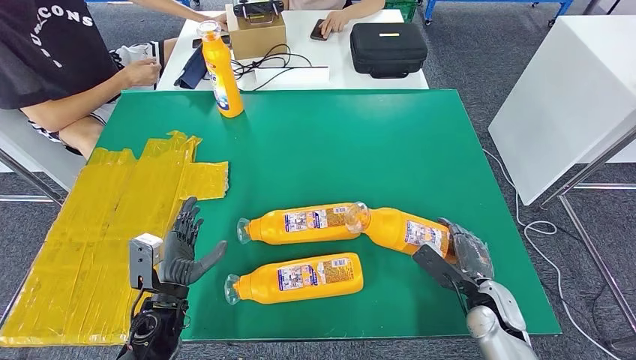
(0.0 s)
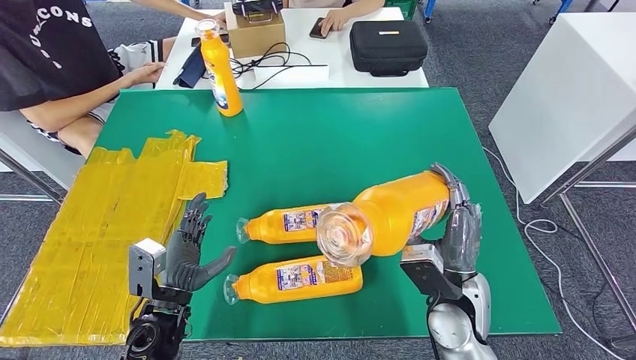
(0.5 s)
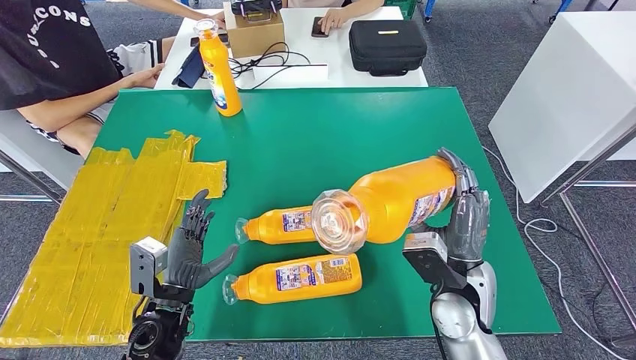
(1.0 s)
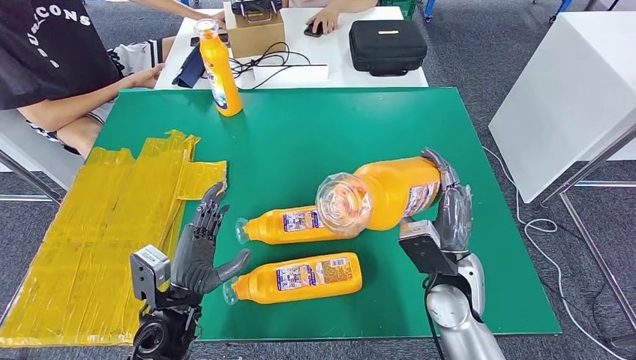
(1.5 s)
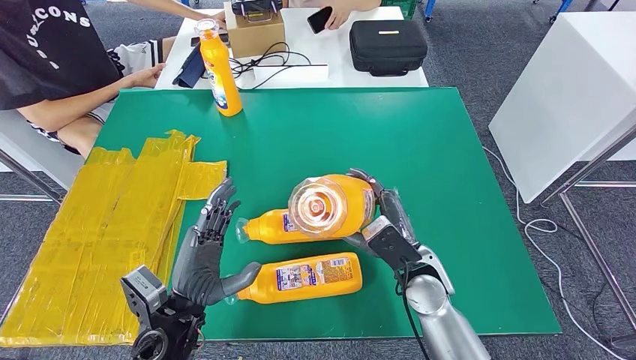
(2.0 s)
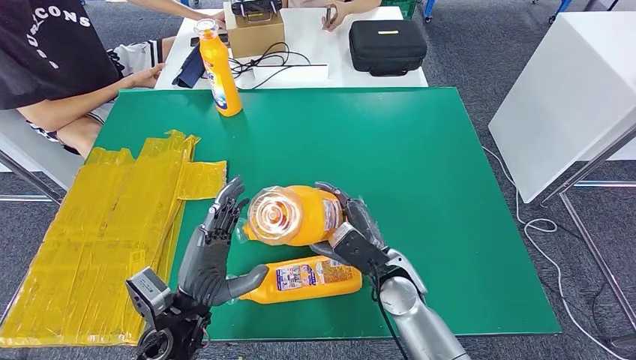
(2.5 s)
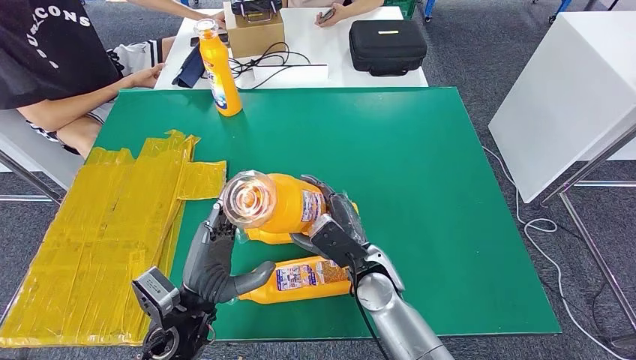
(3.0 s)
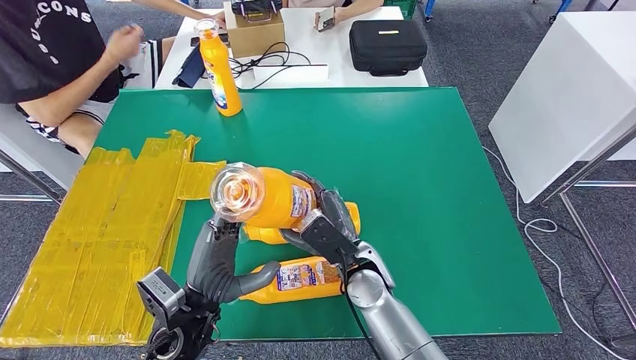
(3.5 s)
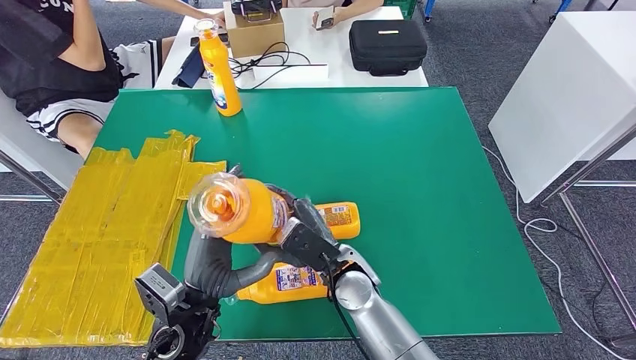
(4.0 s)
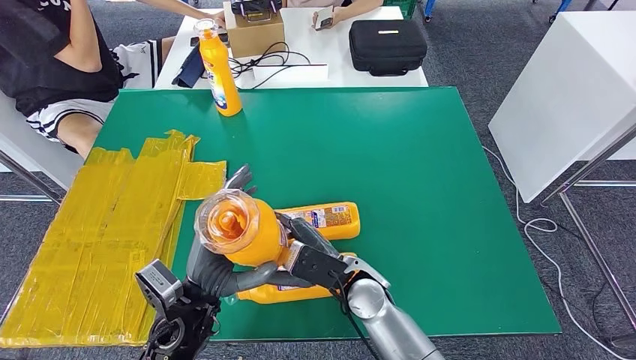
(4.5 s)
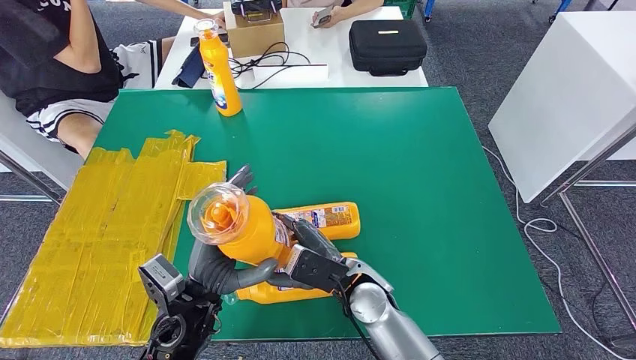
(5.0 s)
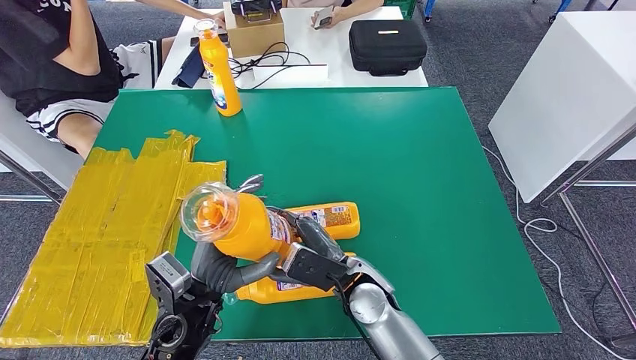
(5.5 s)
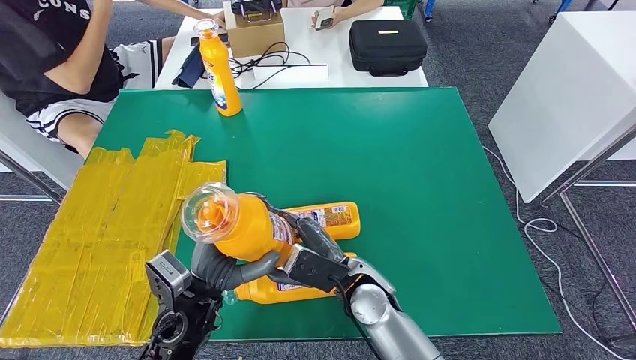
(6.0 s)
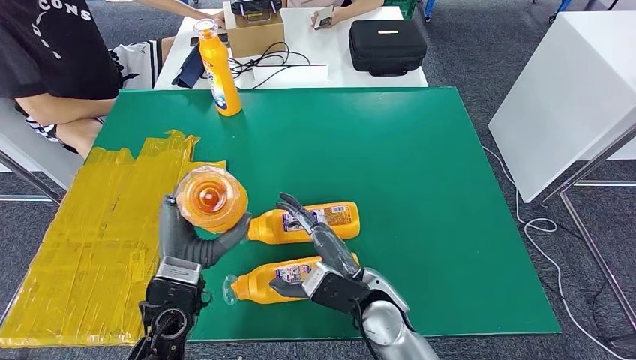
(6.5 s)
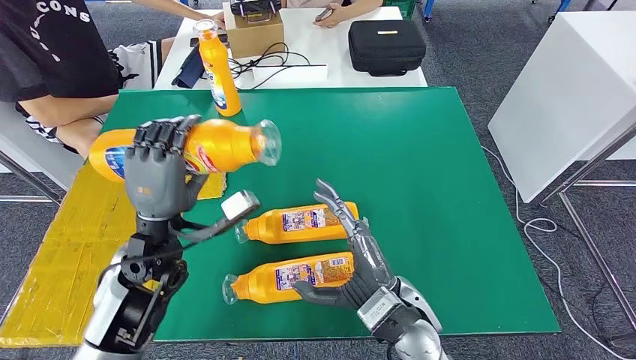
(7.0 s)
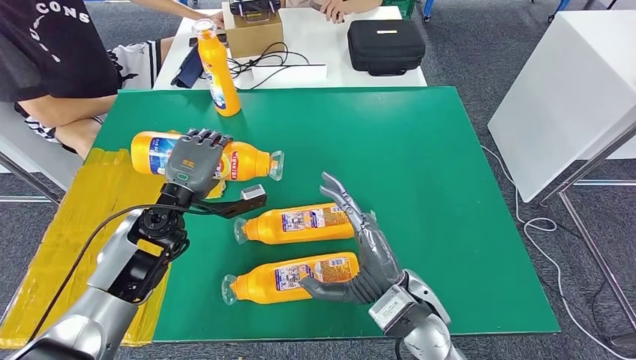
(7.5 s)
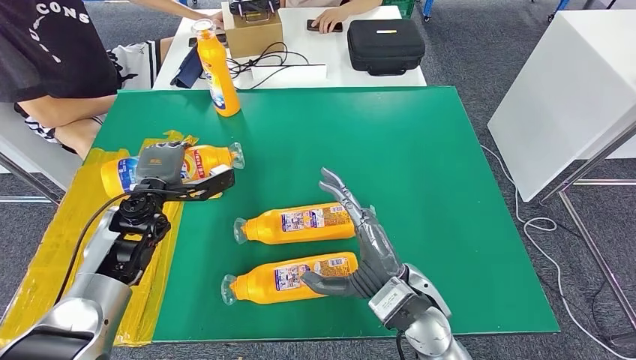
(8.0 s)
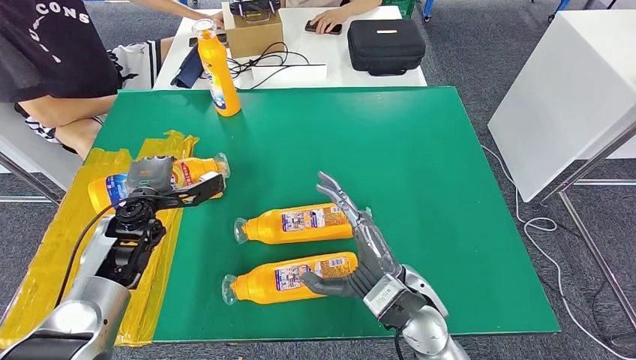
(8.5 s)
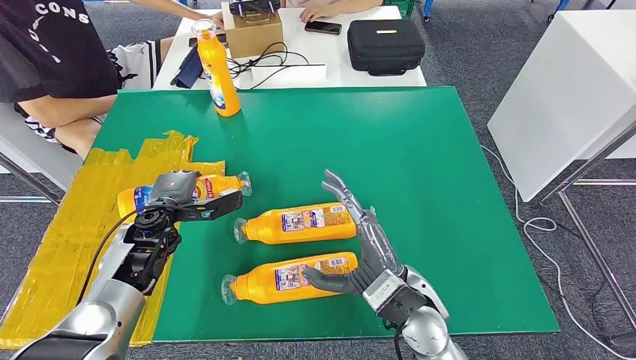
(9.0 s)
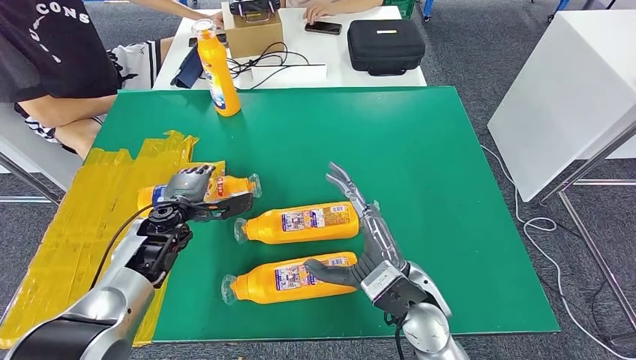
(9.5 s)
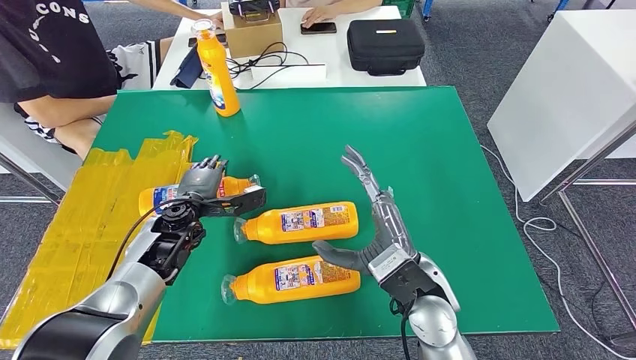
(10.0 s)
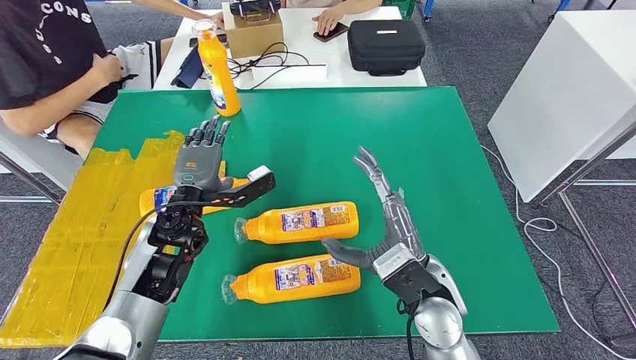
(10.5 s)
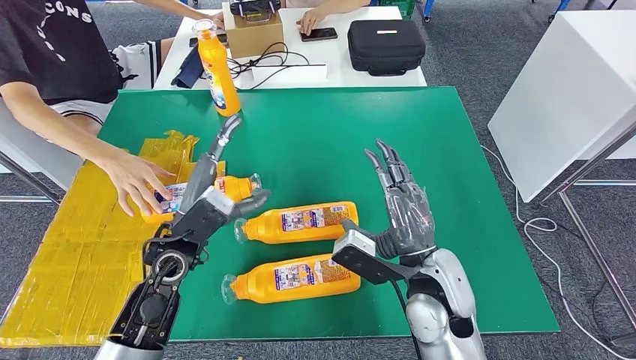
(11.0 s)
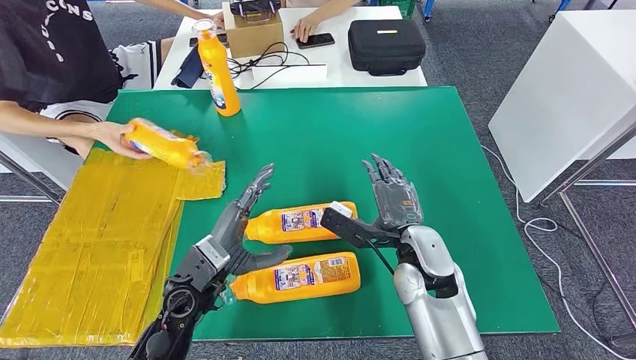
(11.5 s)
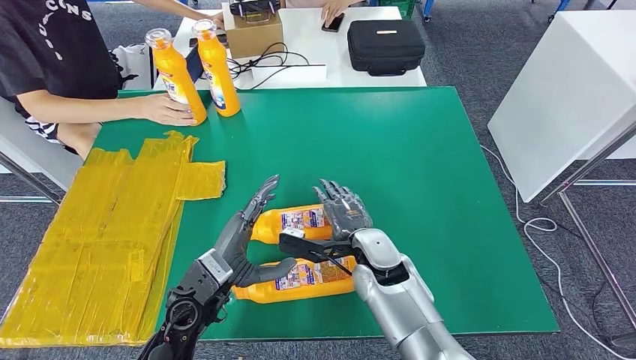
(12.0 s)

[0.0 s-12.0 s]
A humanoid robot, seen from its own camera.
Step, 0.0 to 9.5 s: Flip the bottle to face forward.
2.0 to 4.0 s: The right hand goes some 10 cm to the left.
4.0 to 6.0 s: The hands make only small movements.
8.0 to 10.0 s: The left hand is displaced to the right by roughly 5 cm.

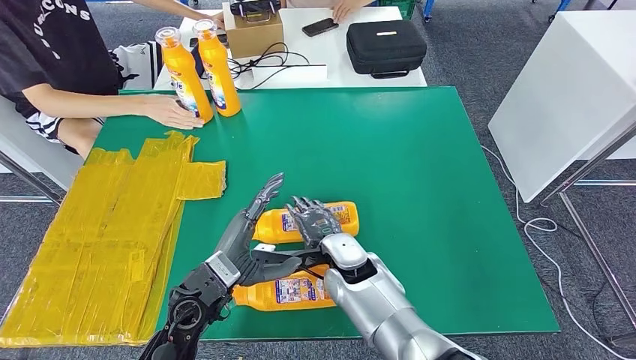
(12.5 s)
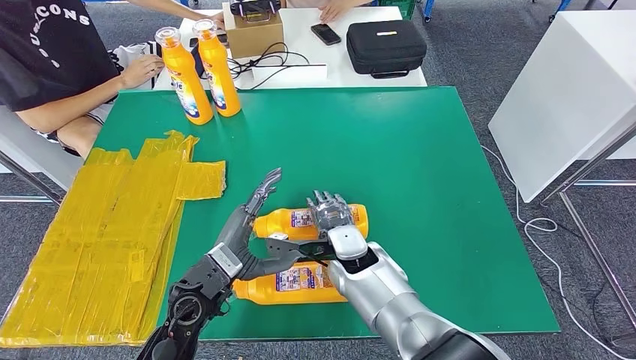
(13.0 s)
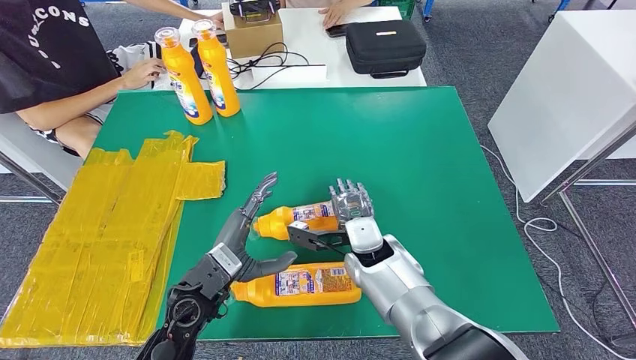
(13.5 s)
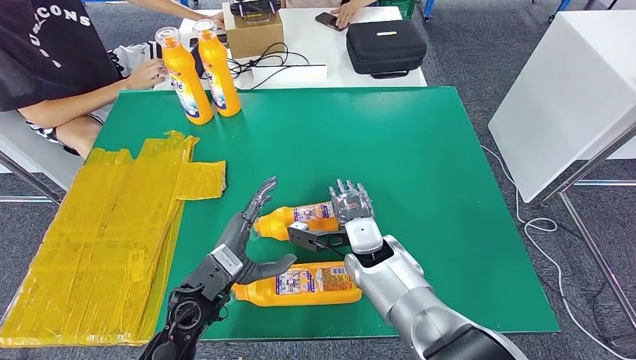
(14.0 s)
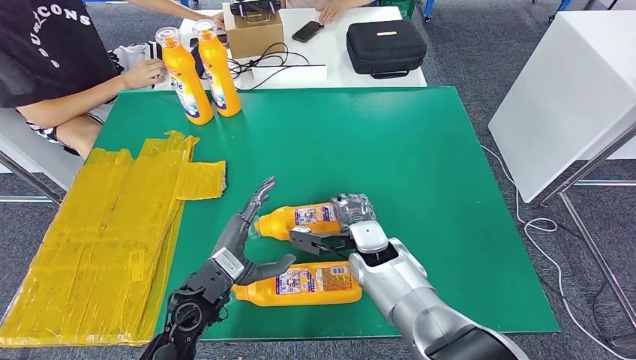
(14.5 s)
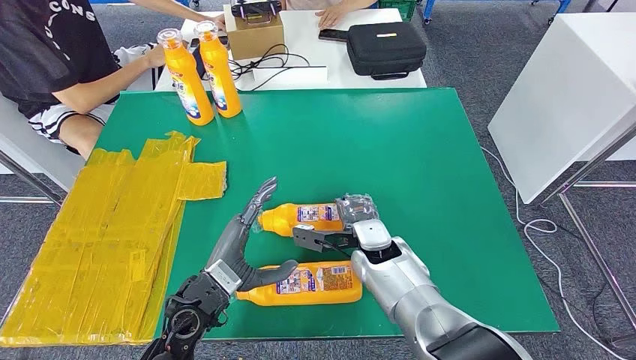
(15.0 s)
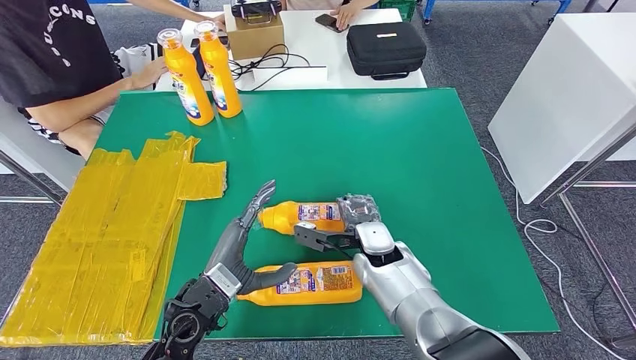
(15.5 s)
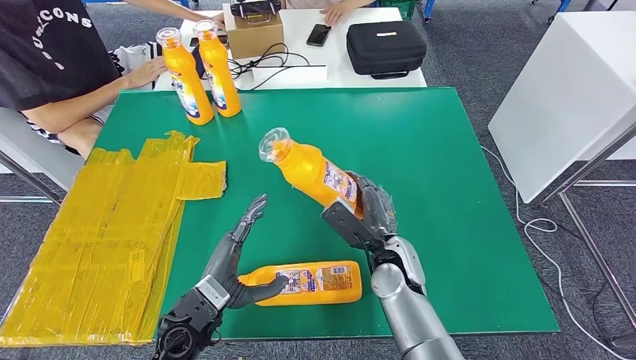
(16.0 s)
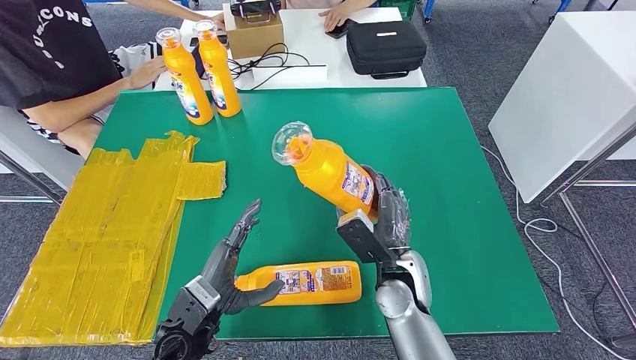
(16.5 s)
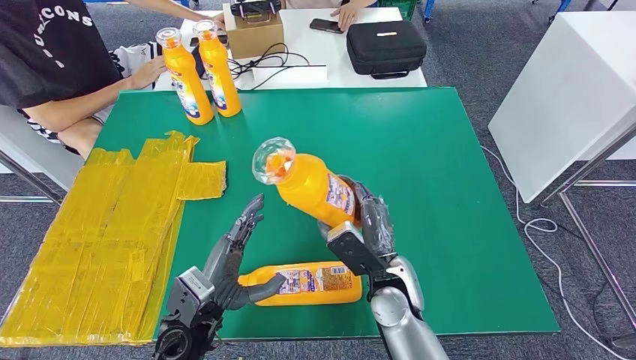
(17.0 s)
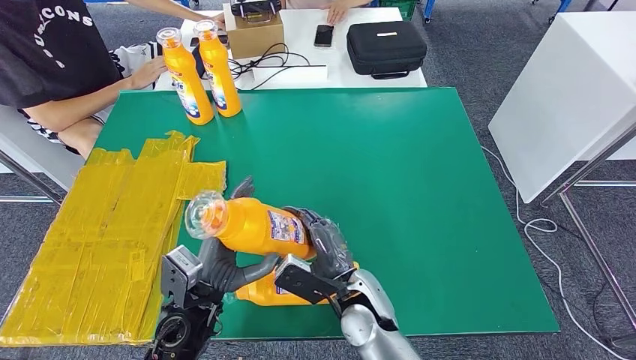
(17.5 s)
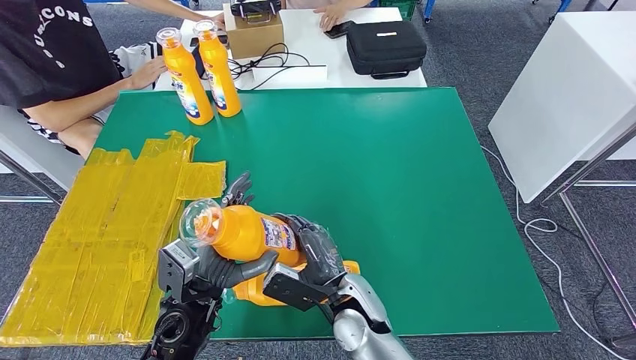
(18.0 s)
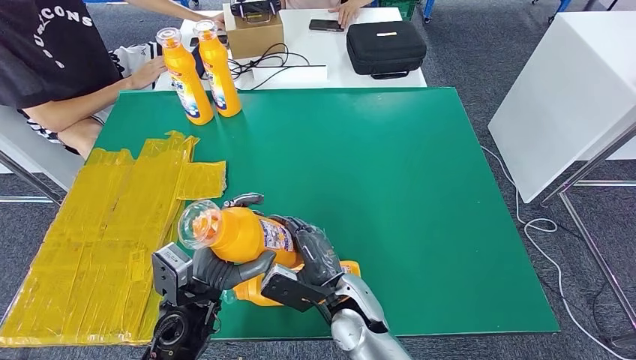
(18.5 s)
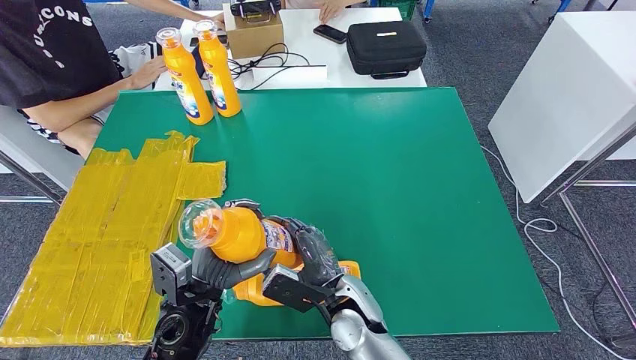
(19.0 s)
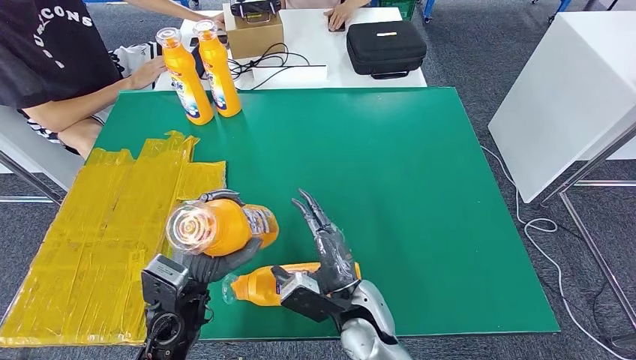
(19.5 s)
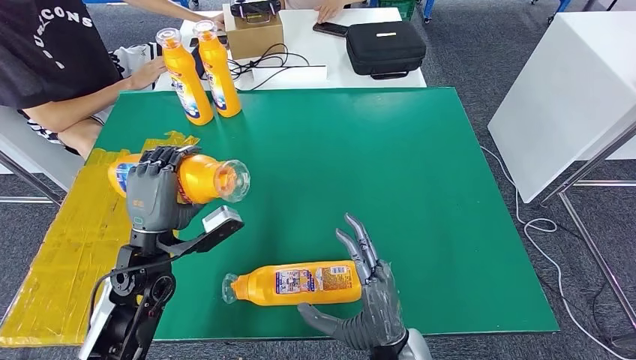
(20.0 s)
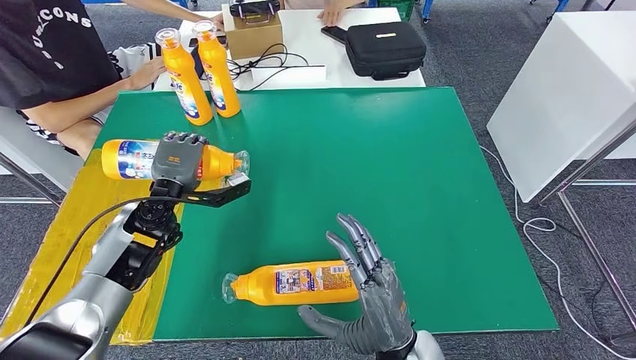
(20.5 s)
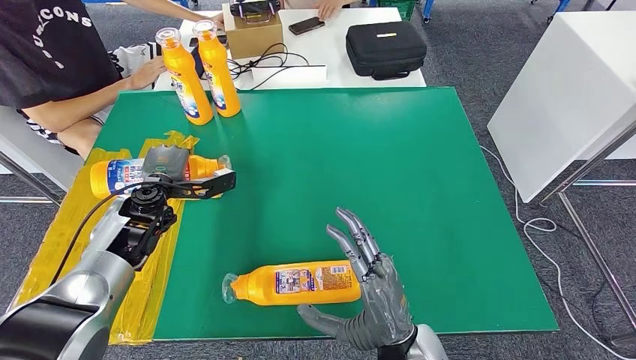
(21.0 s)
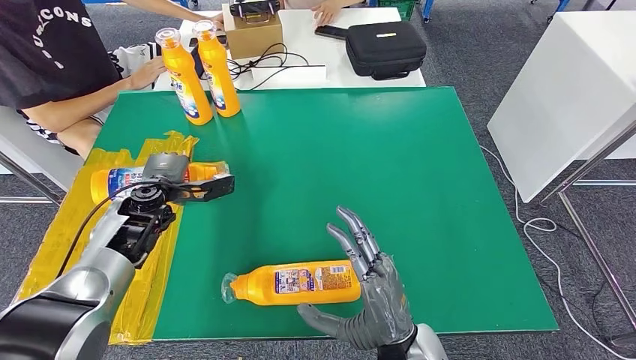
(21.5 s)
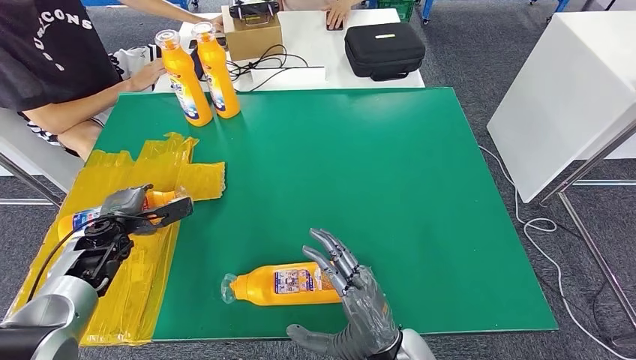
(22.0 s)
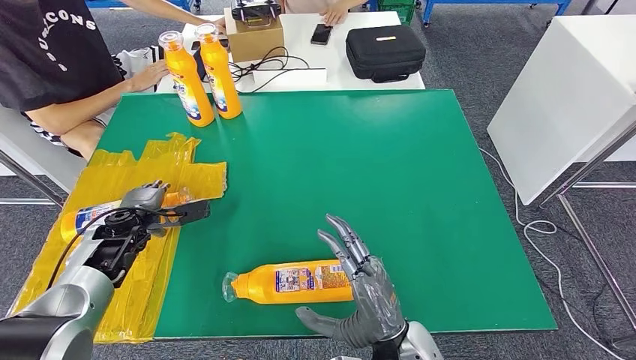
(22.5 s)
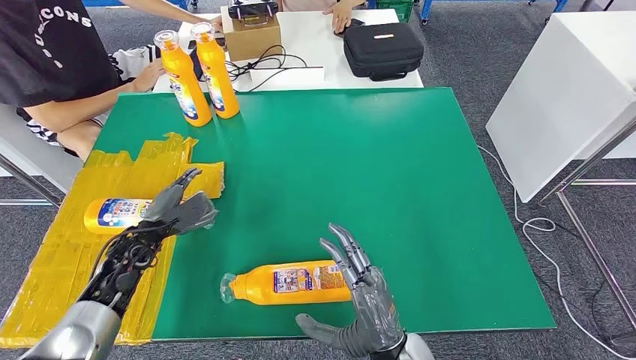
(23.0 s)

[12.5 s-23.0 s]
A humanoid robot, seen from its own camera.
Step, 12.5 to 18.5 s: Pick up the bottle from the table.
Step, 19.0 to 22.0 s: Flip the bottle to face forward.
12.5 to 14.5 s: The right hand moves approximately 5 cm.
14.5 to 16.5 s: The right hand goes approximately 10 cm backward and to the right.
16.5 to 19.0 s: The right hand is displaced to the left by about 10 cm.
19.0 to 21.0 s: The left hand moves forward and to the left, some 25 cm. Meanwhile the right hand shifts roughly 15 cm backward, to the right and upward.
21.0 to 23.0 s: The left hand heads downward and backward, covering approximately 10 cm.
